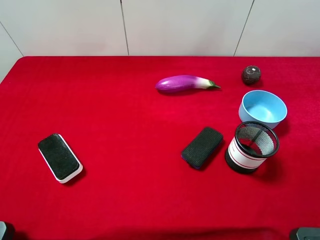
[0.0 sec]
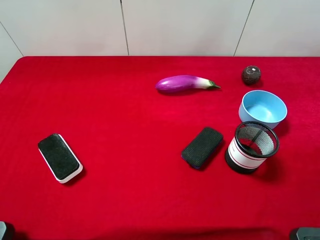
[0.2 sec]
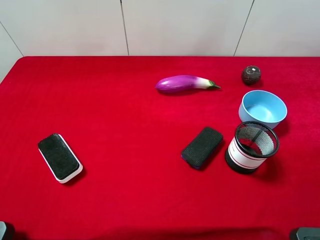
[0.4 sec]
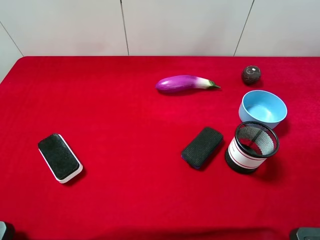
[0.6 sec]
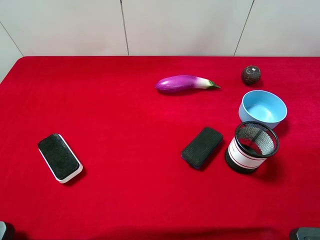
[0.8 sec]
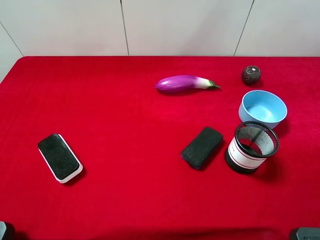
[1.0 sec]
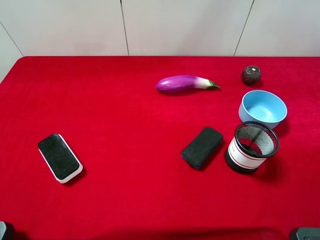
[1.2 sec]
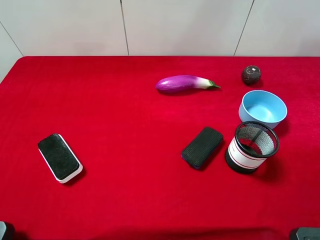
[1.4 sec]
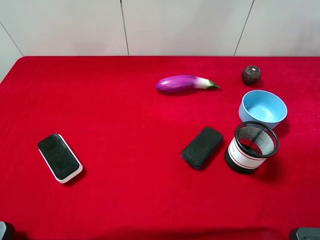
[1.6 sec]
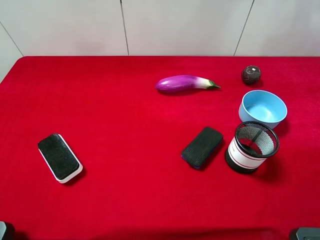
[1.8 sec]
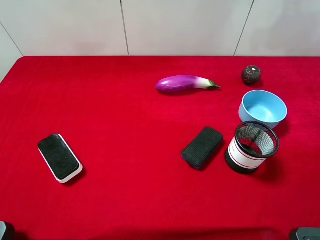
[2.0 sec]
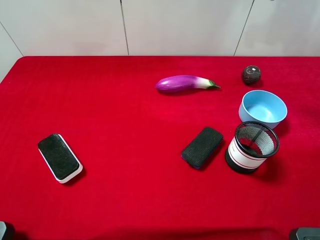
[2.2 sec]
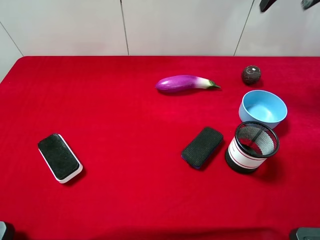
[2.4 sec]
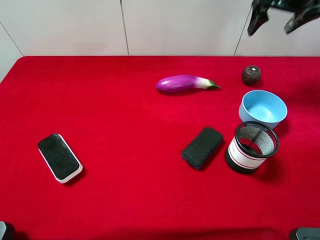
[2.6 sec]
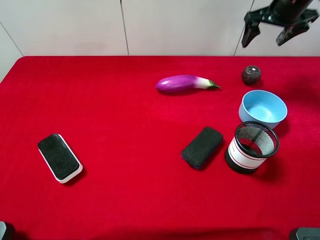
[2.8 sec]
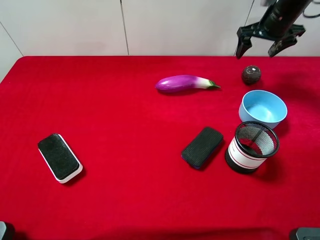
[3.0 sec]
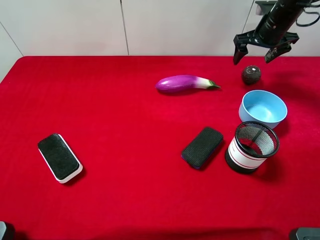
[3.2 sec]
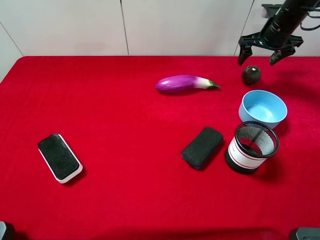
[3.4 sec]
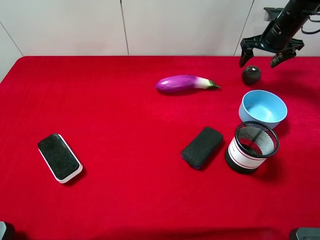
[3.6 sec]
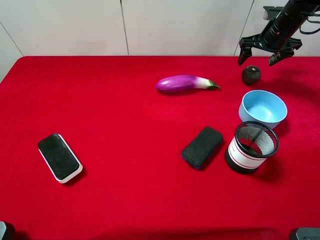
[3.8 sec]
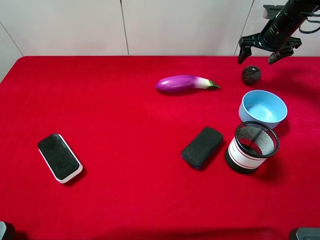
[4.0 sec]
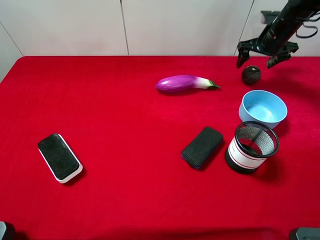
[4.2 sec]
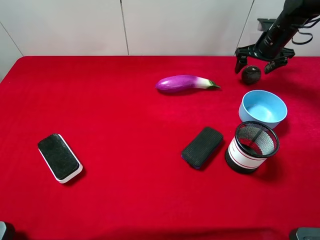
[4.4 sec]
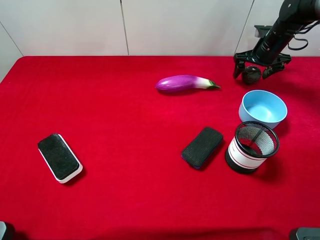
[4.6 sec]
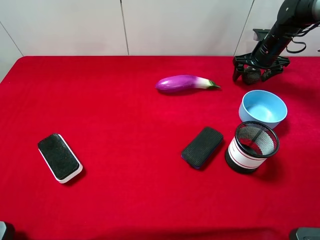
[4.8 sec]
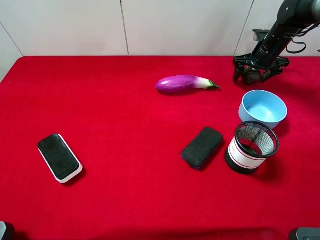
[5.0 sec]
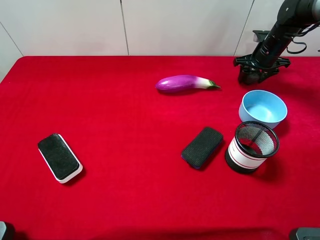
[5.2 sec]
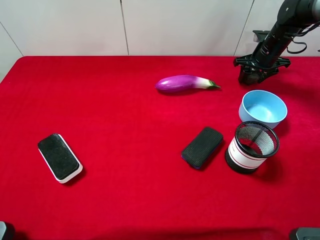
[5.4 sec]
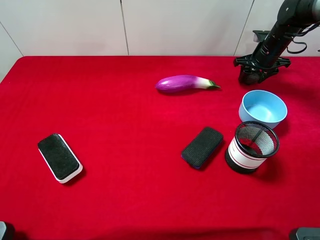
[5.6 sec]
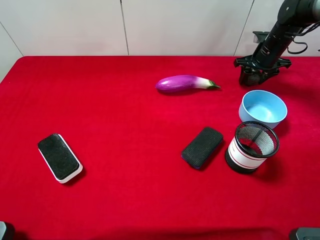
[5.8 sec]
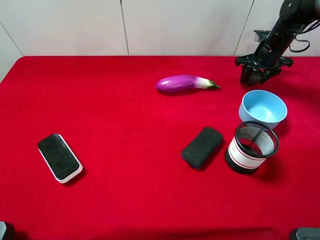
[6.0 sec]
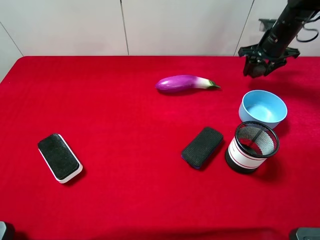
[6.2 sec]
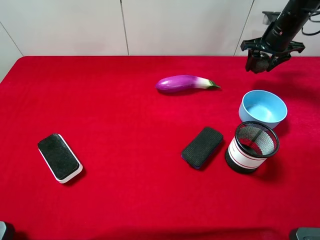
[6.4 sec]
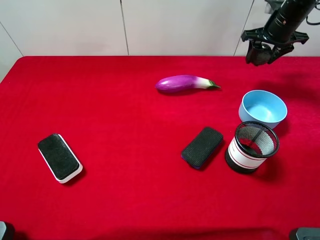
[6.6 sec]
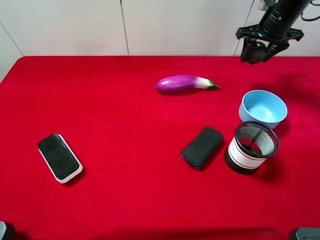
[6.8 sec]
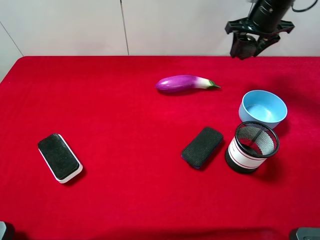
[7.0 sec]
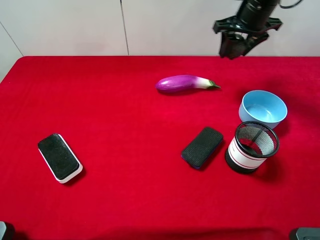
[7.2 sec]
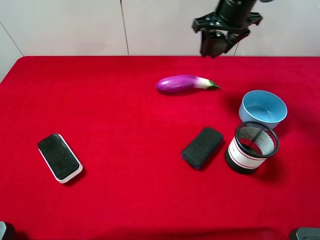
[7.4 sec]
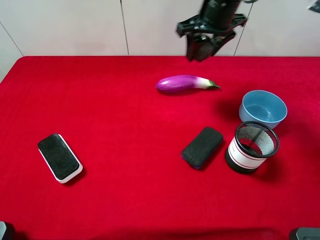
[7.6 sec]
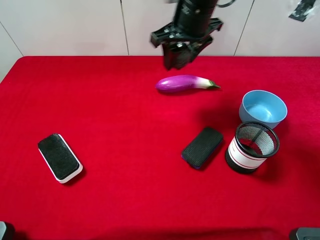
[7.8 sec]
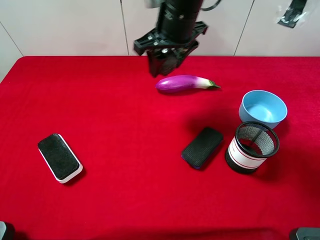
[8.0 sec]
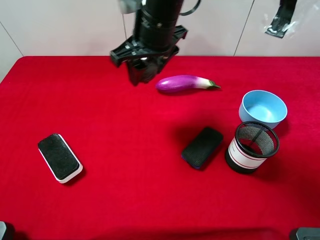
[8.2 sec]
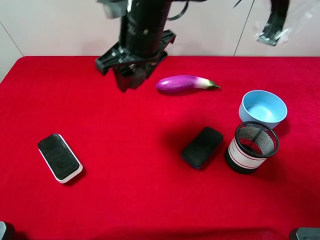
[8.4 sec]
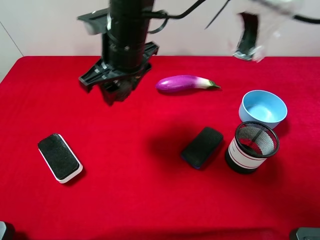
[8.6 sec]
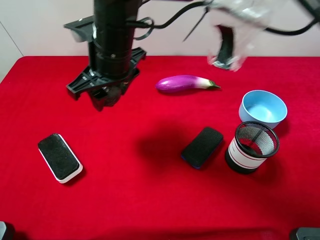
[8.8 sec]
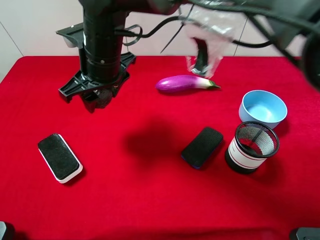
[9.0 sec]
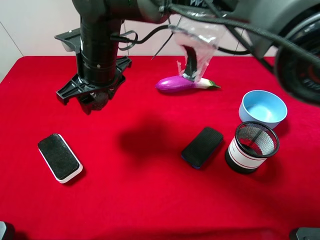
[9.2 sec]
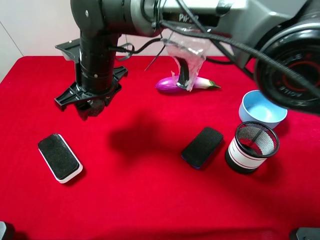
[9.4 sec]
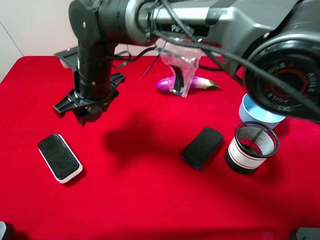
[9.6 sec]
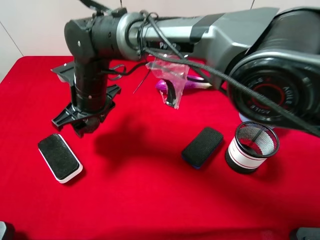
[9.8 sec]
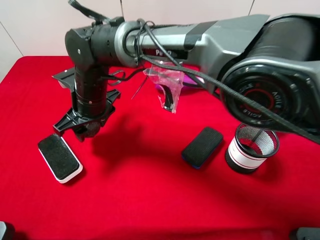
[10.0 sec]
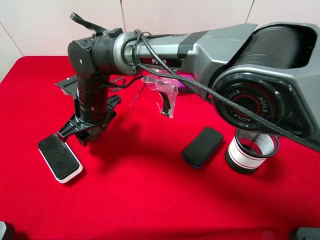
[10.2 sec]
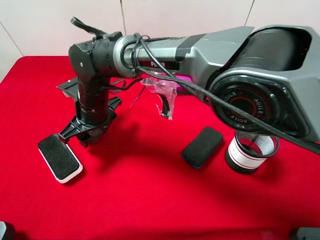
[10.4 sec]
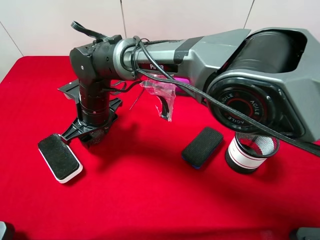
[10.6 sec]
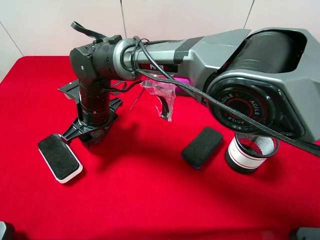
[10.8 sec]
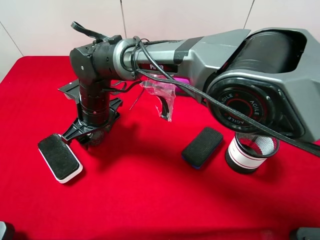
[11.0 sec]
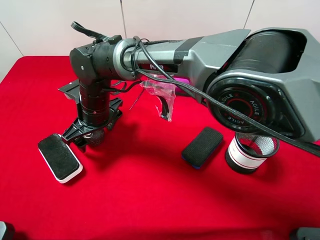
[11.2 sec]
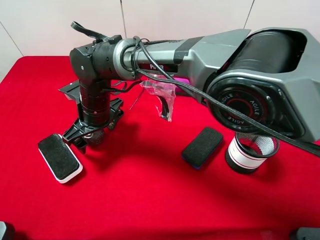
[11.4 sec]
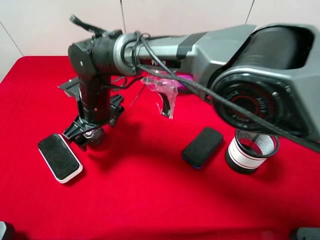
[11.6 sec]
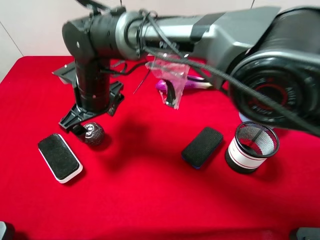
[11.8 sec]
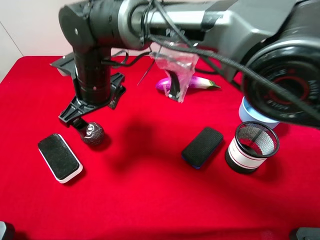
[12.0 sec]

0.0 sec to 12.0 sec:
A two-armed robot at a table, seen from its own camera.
Task of the whole recording: the gripper move the object.
Step, 0.0 sec to 5.6 sec: Grasp the mangosteen with the right gripper.
1.6 sec to 3.0 sec: The right gripper travels forward and downward by approximately 30 cm.
3.0 sec to 4.4 sec: The right gripper is displaced downward by approximately 5 cm.
4.4 sec to 6.0 sec: The right gripper closes.
6.0 sec to 7.6 sec: The right gripper heads to the left, upward and backward, covering some 25 cm.
7.6 sec to 9.0 sec: The right gripper travels to the left and backward by roughly 20 cm.
9.0 sec to 10.4 sec: The right gripper is displaced downward by about 10 cm.
10.4 sec to 12.0 sec: The right gripper shifts approximately 5 cm upward, and opens up.

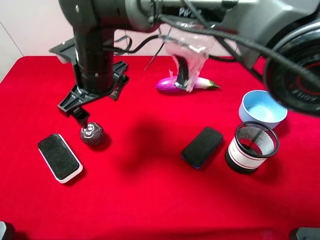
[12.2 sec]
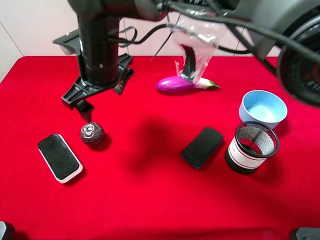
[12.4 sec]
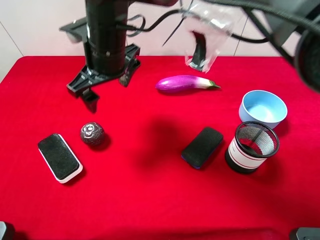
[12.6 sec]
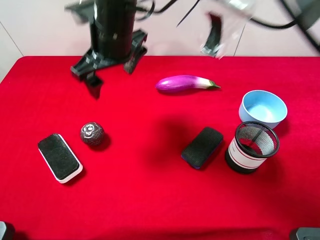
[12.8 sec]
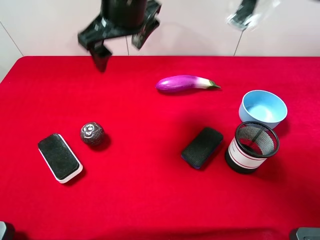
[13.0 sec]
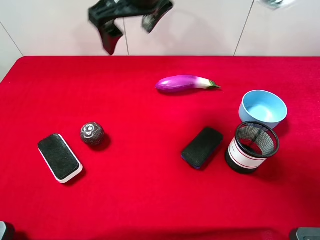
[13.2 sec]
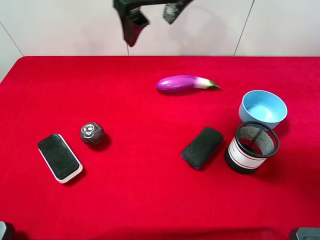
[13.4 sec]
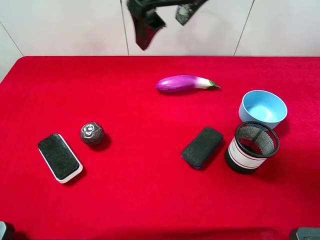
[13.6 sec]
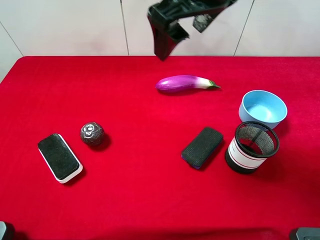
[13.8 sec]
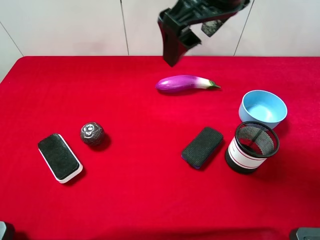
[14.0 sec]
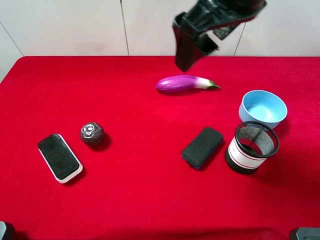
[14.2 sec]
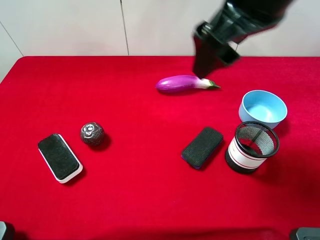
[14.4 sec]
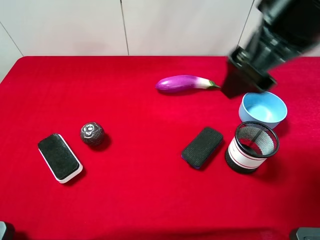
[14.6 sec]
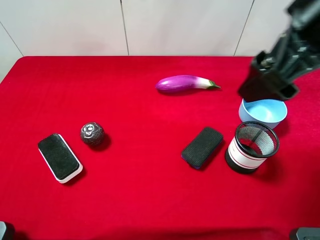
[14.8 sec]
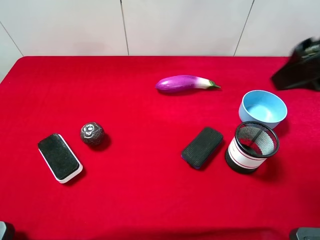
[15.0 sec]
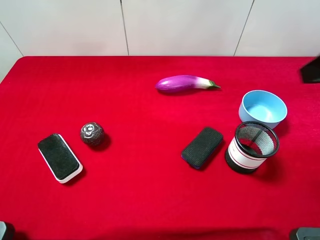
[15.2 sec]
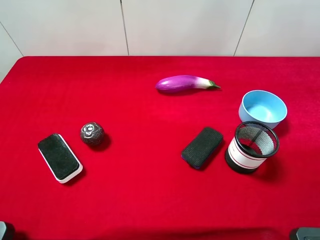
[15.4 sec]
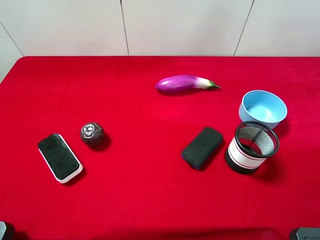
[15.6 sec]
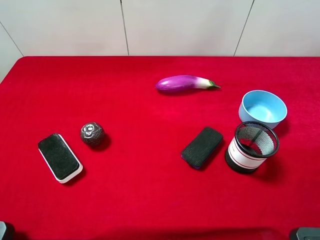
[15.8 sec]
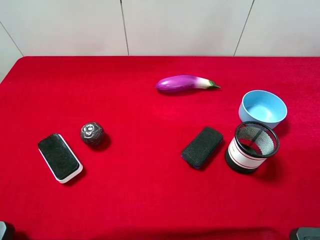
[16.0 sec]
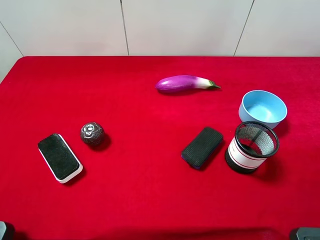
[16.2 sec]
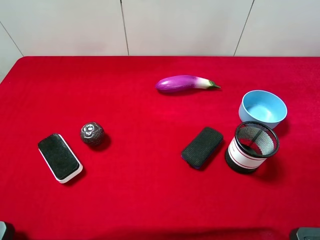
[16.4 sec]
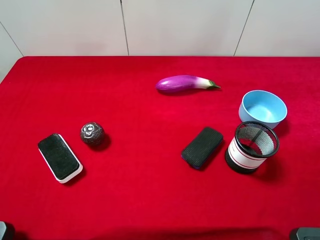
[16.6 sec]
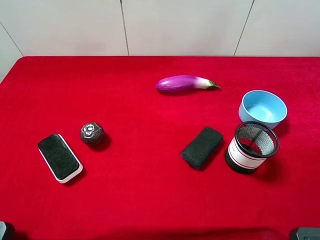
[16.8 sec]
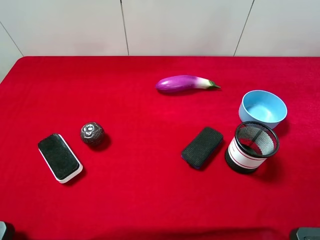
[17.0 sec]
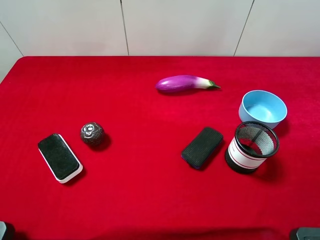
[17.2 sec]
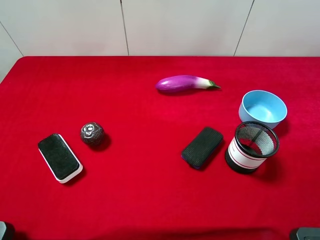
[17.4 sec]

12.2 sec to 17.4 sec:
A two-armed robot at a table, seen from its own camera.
Task of the whole recording: the gripper move the object.
12.2 sec to 14.0 sec: The right gripper moves to the right and upward, approximately 25 cm.
14.0 sec to 15.6 sec: The right gripper shifts roughly 30 cm to the right and backward.
